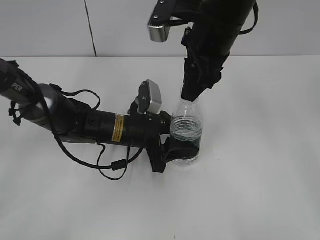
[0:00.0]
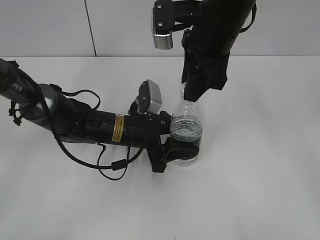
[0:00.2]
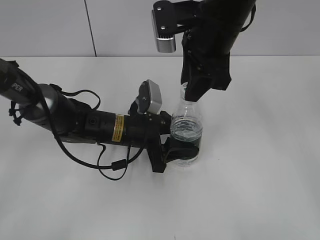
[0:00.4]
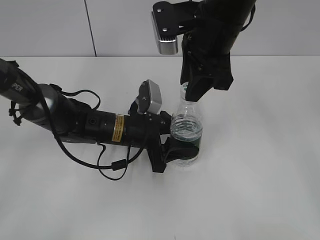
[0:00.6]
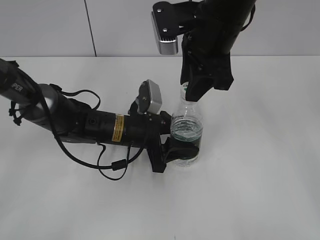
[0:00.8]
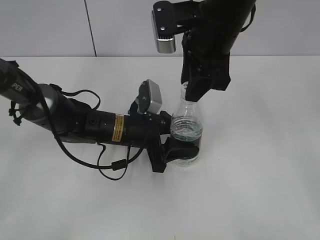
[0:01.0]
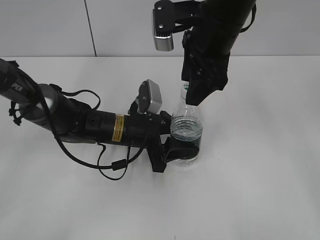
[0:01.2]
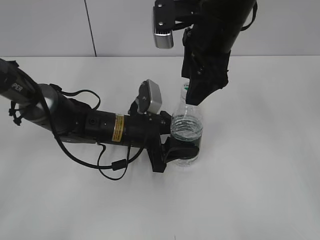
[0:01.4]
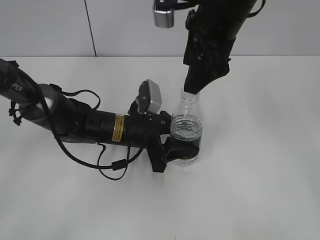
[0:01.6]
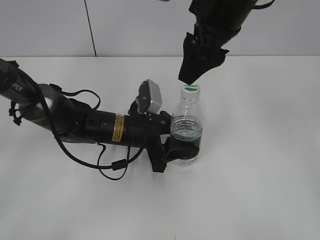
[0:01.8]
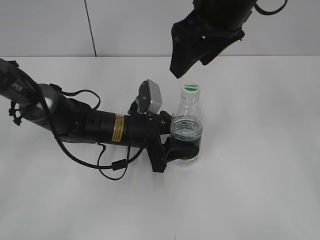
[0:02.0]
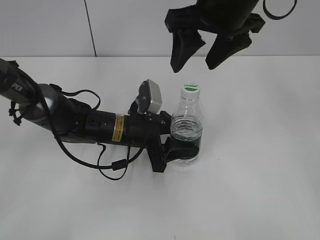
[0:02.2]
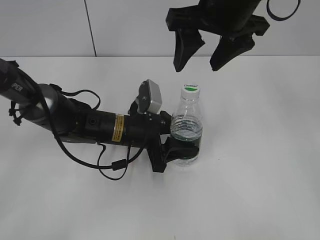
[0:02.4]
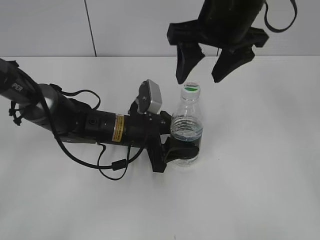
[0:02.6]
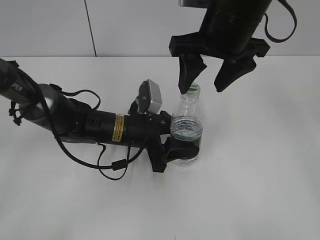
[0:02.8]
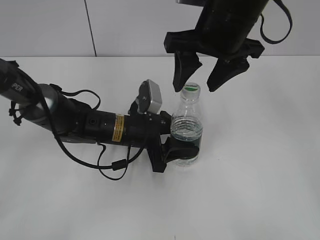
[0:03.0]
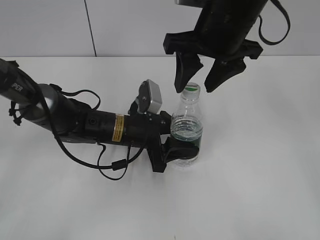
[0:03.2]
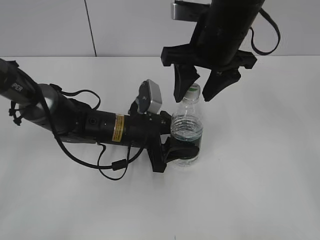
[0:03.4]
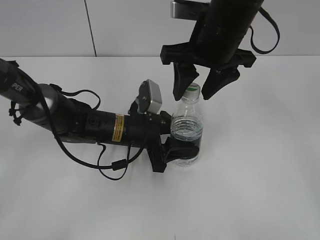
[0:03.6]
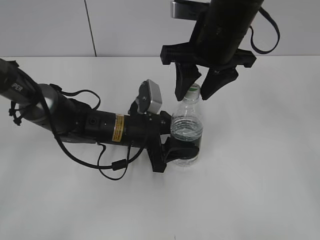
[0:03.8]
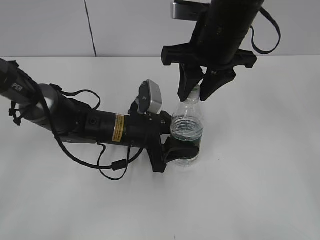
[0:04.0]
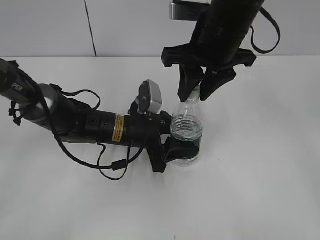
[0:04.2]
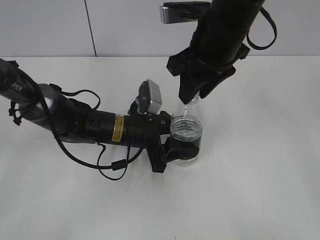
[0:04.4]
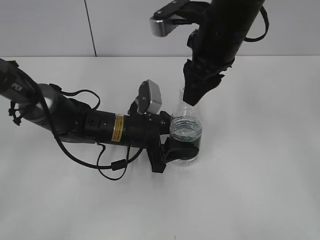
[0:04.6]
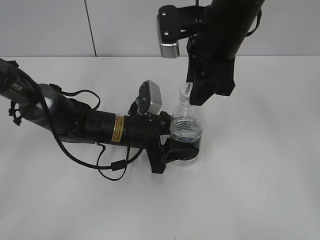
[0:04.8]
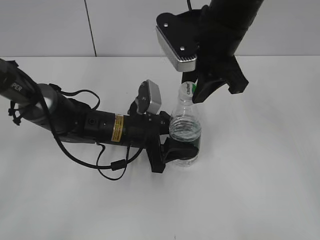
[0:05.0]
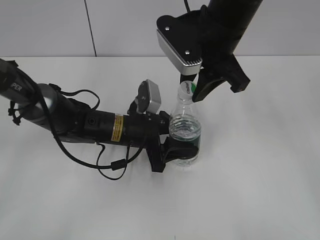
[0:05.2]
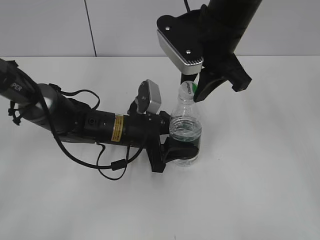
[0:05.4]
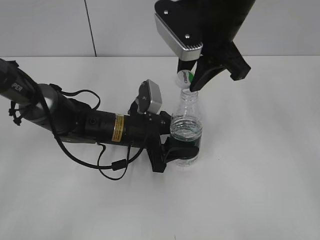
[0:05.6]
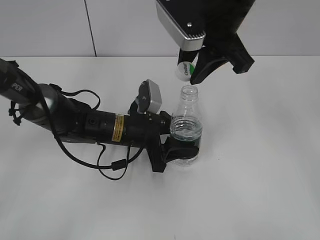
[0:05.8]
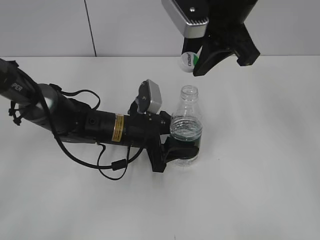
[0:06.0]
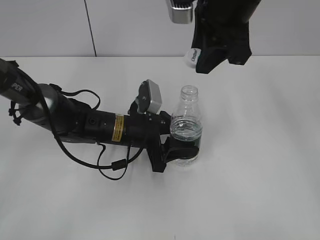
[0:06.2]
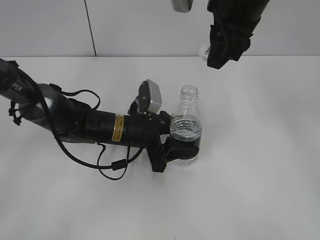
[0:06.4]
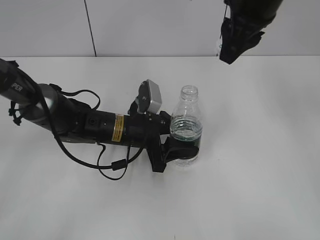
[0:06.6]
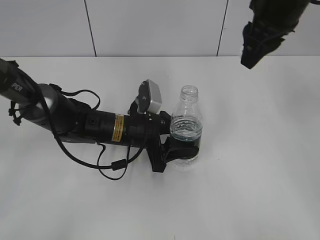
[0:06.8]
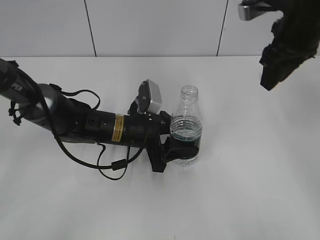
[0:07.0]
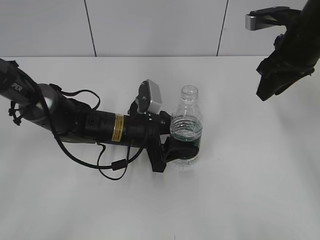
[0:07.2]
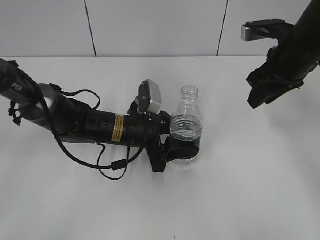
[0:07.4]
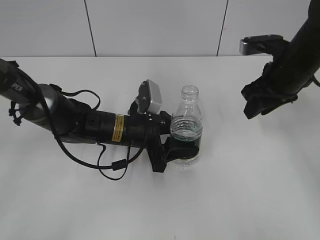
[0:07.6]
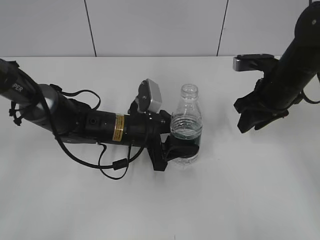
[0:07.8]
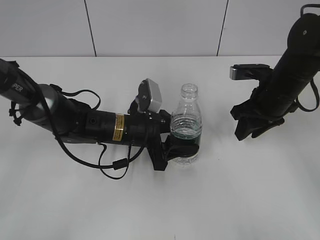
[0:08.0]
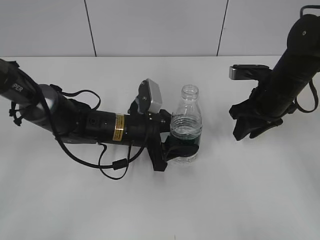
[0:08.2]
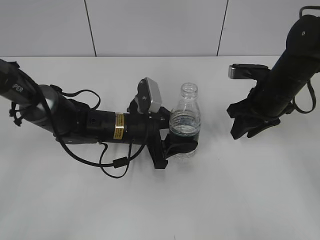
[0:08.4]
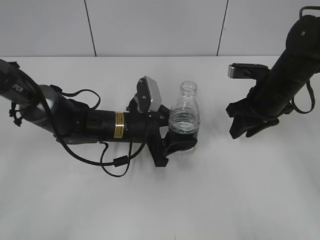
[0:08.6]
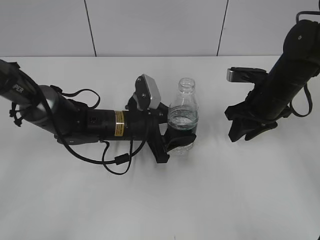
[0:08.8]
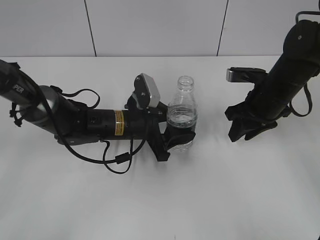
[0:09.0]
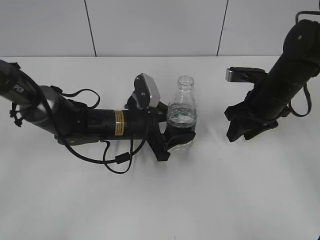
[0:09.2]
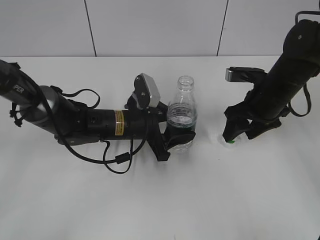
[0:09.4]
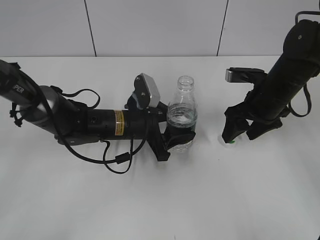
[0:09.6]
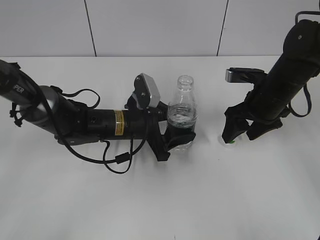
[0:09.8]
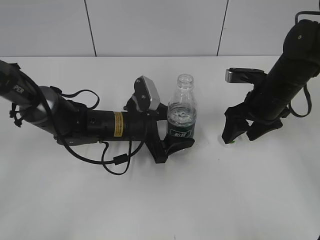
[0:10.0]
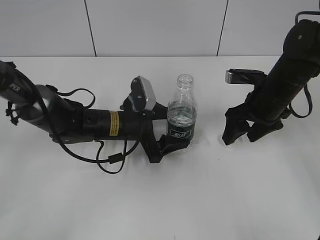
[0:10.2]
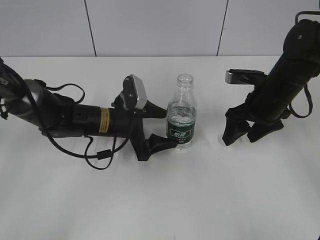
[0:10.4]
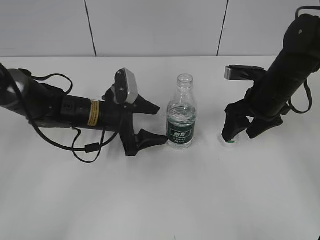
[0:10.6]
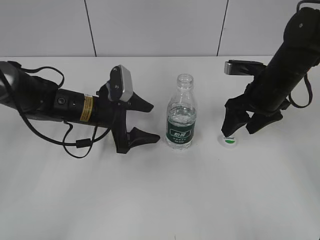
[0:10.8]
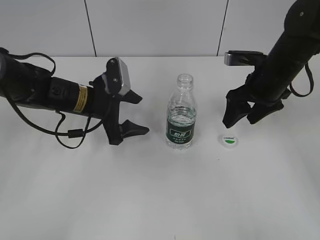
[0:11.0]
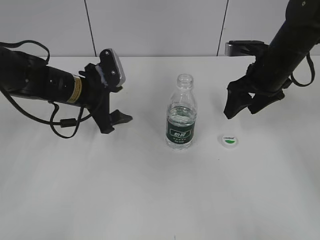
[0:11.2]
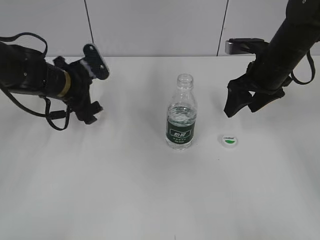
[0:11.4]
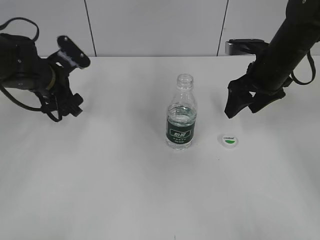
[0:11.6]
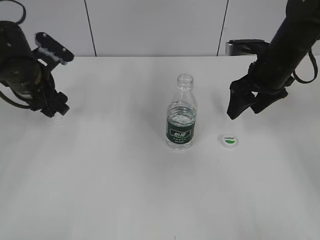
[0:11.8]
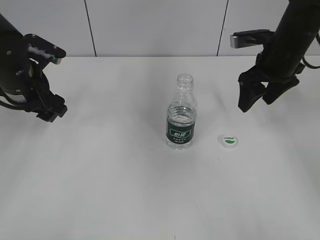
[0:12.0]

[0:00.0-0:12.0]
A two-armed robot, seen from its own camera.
Step, 0:00.0 to 0:05.6: Unscrew the bottle cap with the right gripper while holding the bottle with the left gripper.
0:00.0 to 0:01.6: The right gripper opens.
0:03.0 to 0:04.4: The right gripper closes its fingers.
0:04.4 to 0:06.0: The right gripper heads upward, covering approximately 5 cm.
0:06.0 to 0:07.6: The right gripper travels to the right and downward by some 20 cm.
0:07.6 to 0:09.0: The right gripper moves downward, approximately 5 cm.
0:09.0 to 0:10.4: The right gripper opens. Meanwhile the left gripper opens its fingers.
0:10.4 to 0:12.0: The right gripper goes roughly 5 cm upward. Meanwhile the left gripper heads to the left and upward, covering approximately 20 cm.

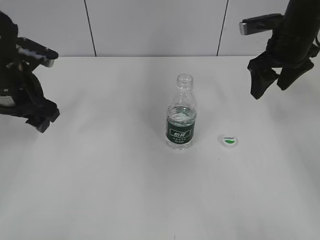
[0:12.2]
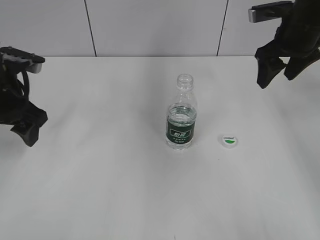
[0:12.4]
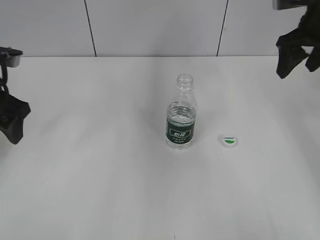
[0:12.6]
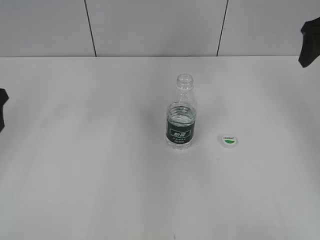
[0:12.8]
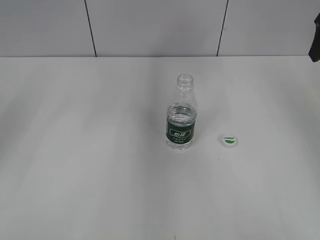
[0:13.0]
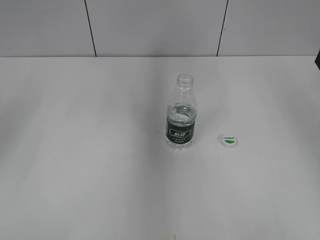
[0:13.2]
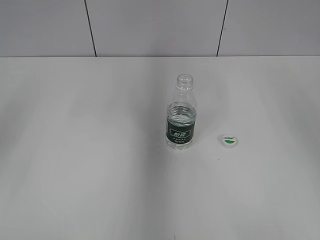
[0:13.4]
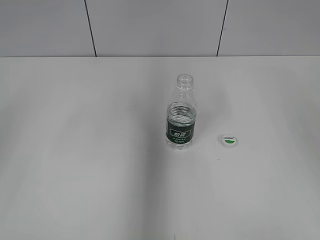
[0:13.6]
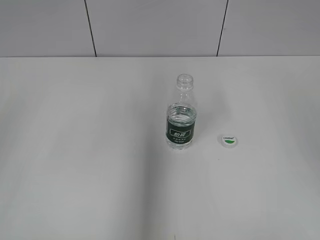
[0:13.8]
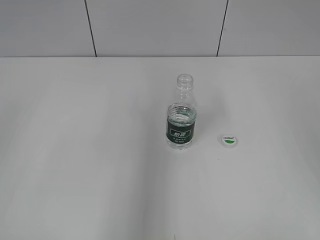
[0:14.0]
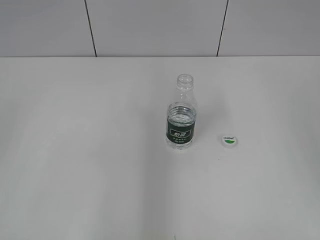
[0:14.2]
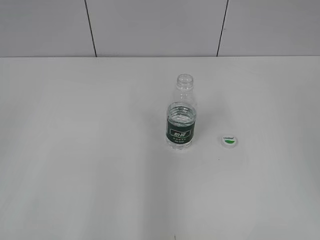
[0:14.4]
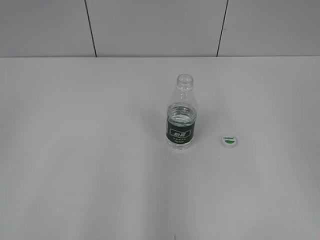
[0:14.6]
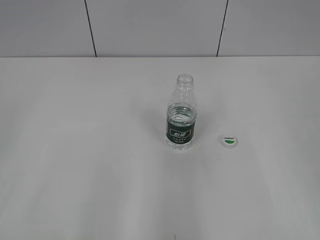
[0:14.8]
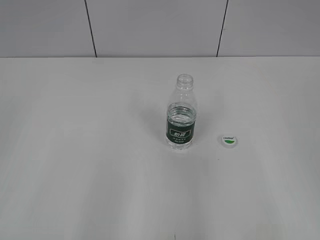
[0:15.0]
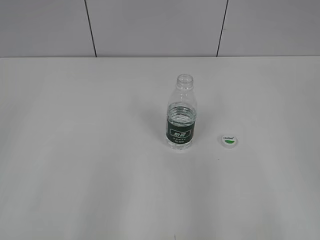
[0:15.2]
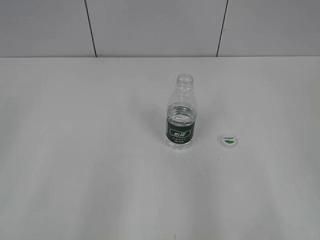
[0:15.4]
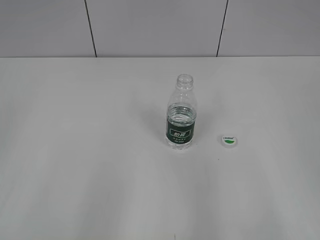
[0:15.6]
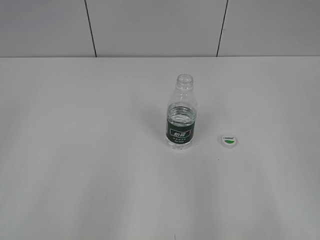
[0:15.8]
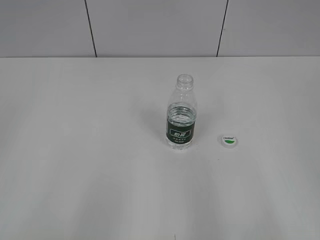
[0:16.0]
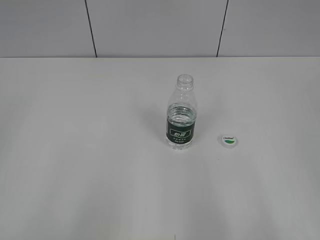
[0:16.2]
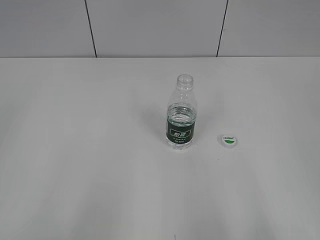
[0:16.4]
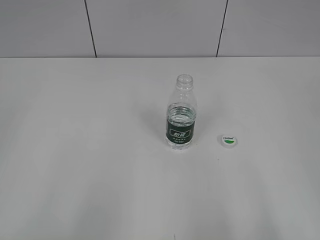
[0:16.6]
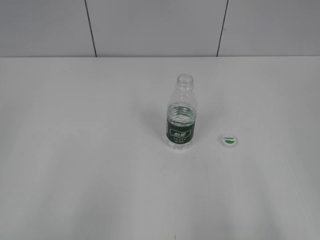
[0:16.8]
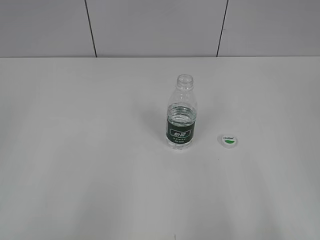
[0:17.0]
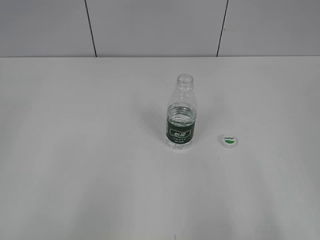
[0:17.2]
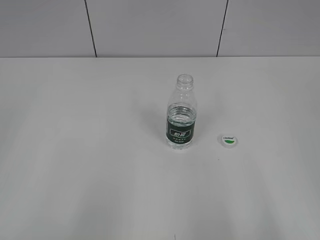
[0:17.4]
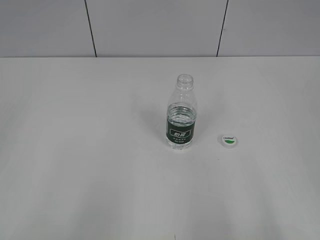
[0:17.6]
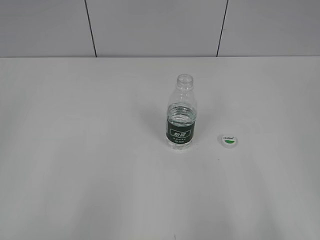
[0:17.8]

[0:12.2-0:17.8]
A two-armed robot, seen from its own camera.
0:12.2 to 0:13.6: The left gripper heads backward, upward and to the left, covering approximately 20 cm. Meanwhile the right gripper is displaced backward, upward and to the right by some 20 cm.
0:13.6 to 0:15.0: The grippers both shift backward by some 15 cm.
